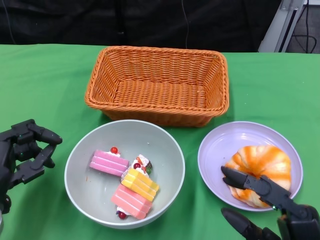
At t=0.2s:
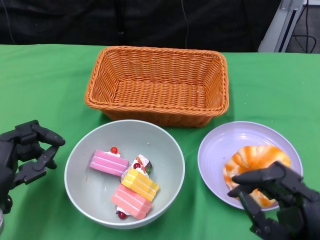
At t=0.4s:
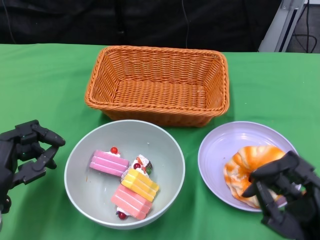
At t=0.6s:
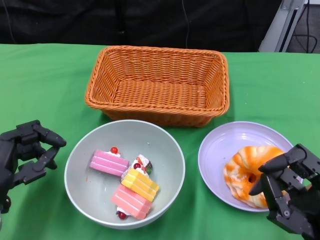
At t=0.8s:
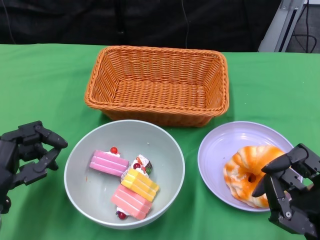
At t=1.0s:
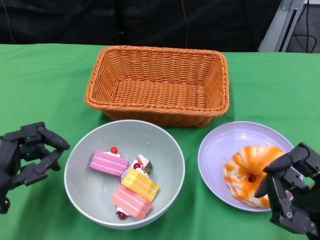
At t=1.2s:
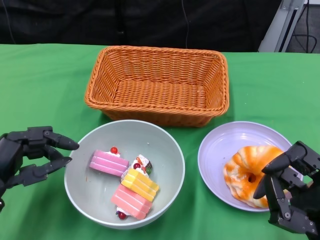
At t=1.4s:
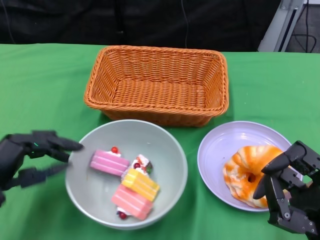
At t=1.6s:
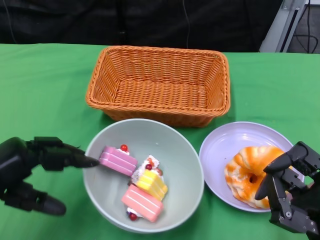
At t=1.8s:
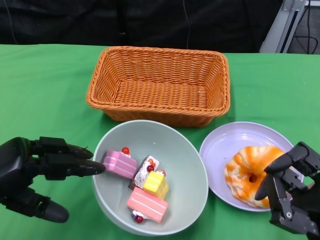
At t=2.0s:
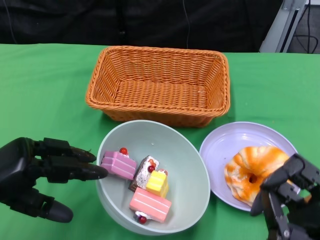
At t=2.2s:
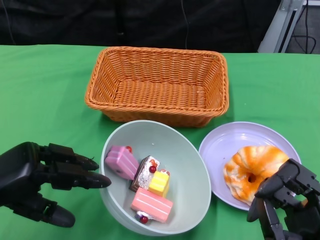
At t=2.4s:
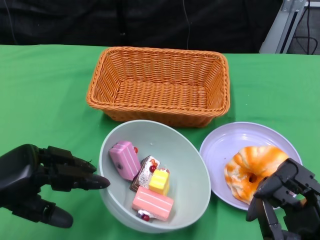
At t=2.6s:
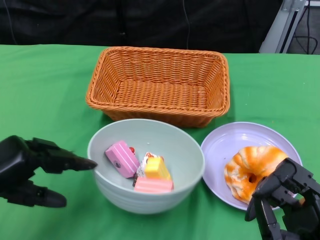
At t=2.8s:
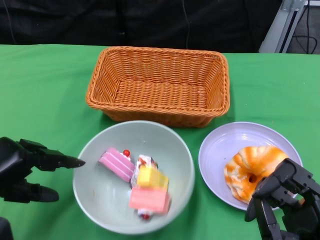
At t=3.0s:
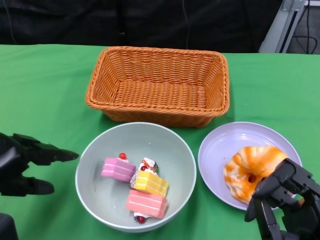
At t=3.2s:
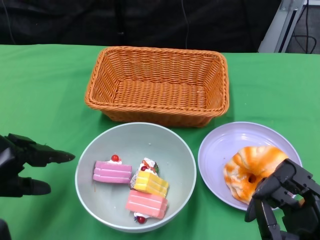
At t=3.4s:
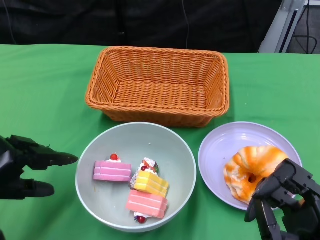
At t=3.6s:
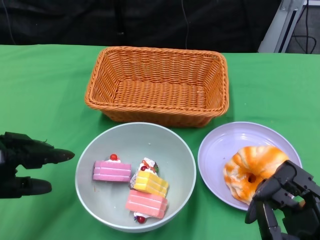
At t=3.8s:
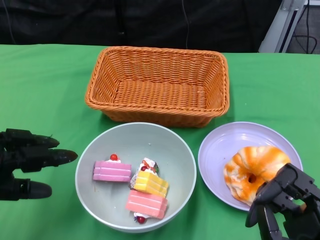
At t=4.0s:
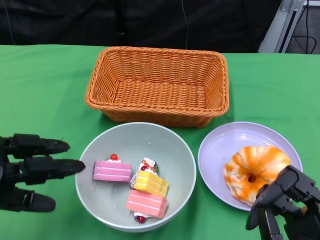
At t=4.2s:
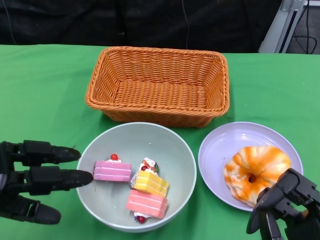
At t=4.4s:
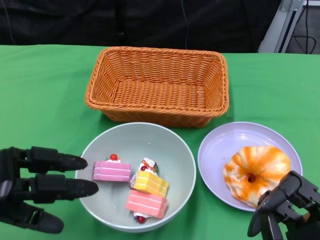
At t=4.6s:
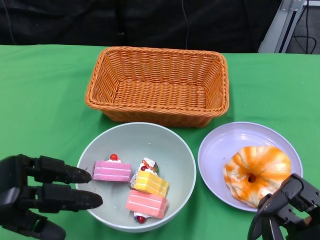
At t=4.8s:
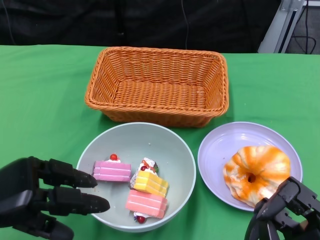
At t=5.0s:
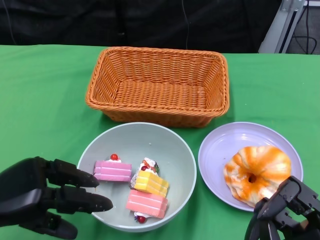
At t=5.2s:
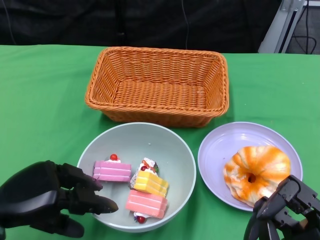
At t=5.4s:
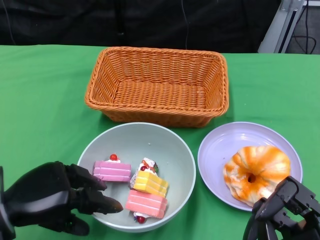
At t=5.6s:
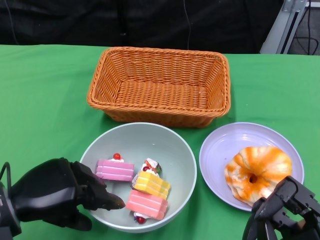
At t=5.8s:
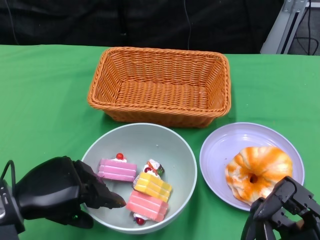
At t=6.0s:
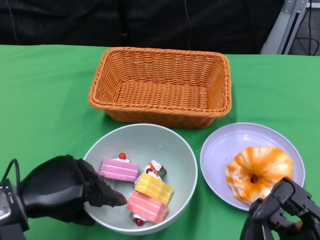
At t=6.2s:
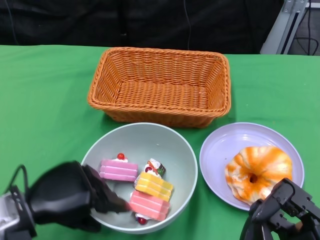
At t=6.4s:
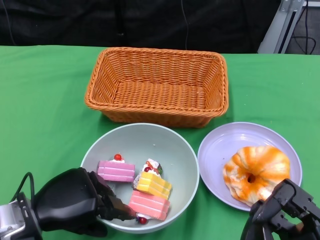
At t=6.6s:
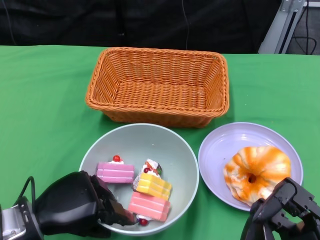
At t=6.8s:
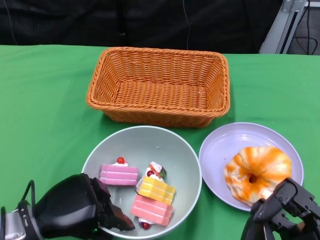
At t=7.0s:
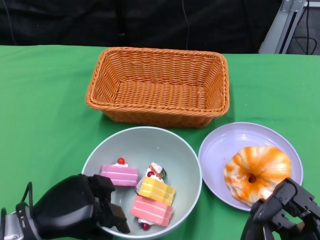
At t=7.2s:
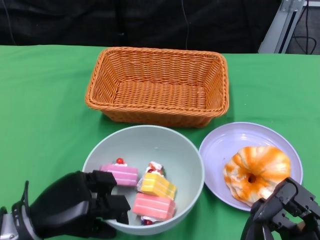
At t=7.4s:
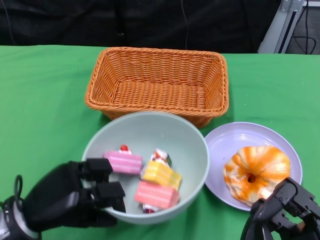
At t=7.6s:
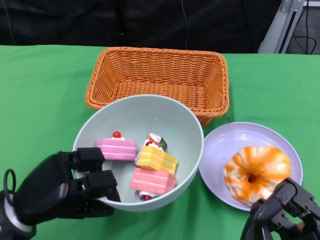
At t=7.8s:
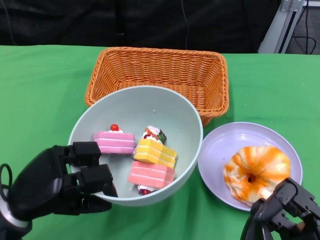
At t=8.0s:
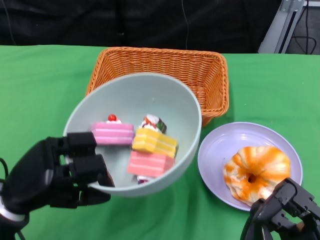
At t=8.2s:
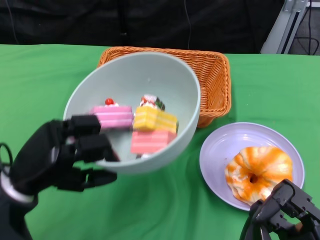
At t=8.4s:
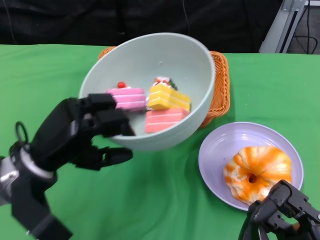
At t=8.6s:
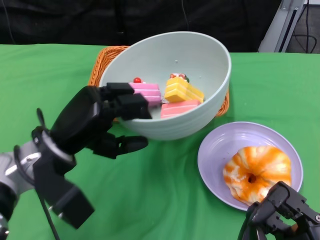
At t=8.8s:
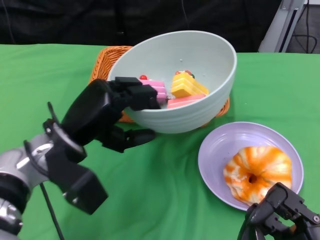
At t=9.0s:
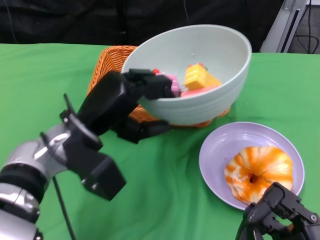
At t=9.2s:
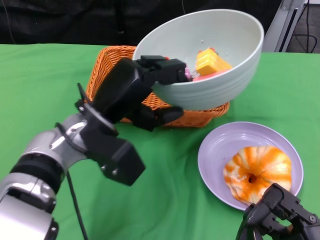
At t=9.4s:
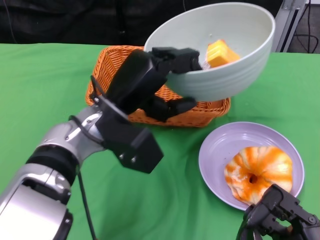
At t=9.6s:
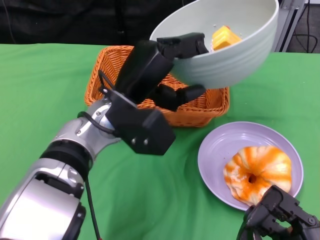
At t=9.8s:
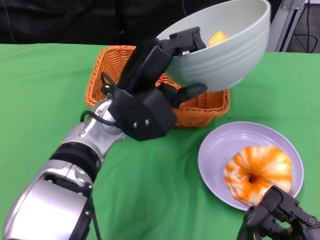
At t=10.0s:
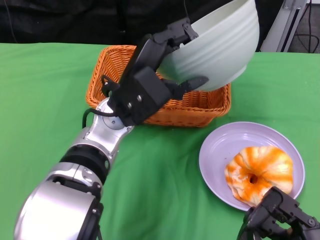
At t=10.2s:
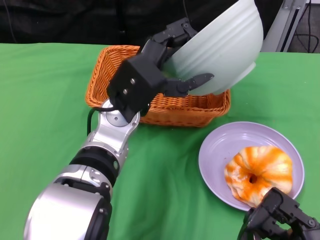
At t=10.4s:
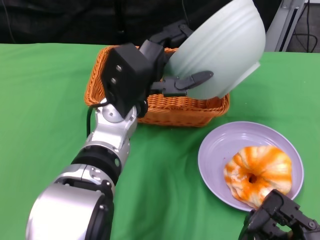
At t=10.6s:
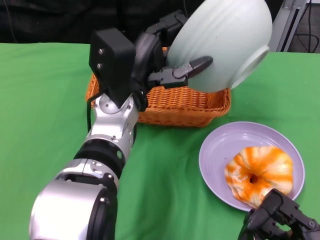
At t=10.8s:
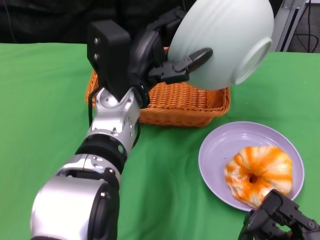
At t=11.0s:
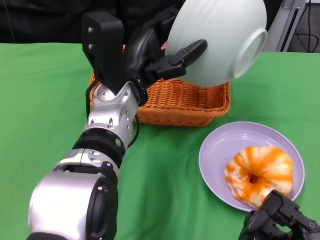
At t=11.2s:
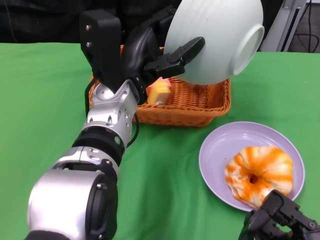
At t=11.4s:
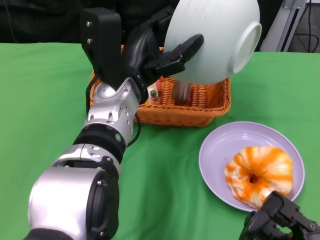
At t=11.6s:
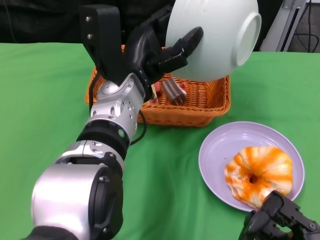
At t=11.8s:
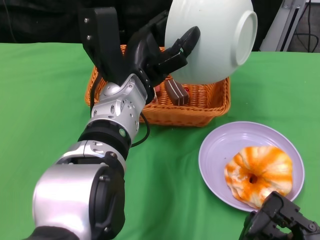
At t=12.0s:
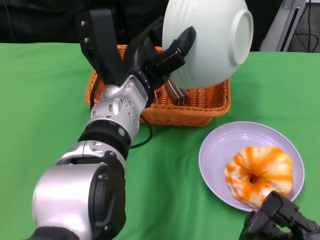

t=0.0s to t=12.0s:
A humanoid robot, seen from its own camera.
Step, t=0.0s to t=6.6s: Grasp the bowl with the left gripper.
t=0.0s to t=1.6s: The right hand moves some 5 cm. The left hand shifts approximately 5 cm upward.
t=4.4s to t=6.0s: The left hand travels to the right by approximately 5 cm.
t=7.6s to t=9.0s: The left hand travels to the right, forward and upward by about 15 cm.
t=9.0s to t=10.4s: The left hand travels to the right by roughly 5 cm.

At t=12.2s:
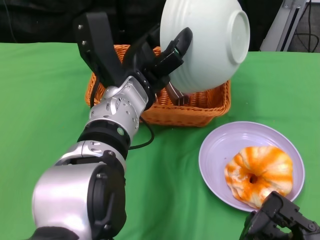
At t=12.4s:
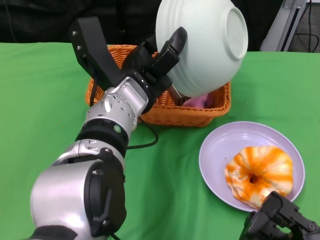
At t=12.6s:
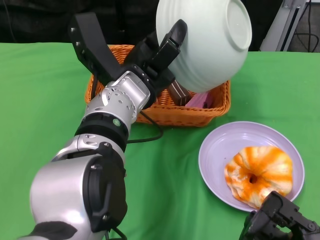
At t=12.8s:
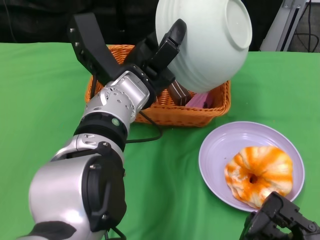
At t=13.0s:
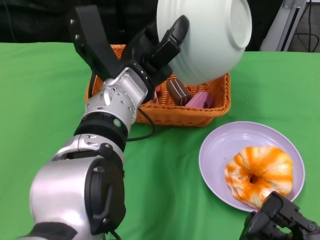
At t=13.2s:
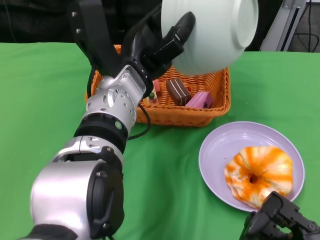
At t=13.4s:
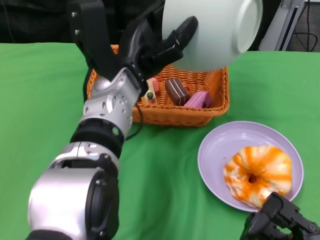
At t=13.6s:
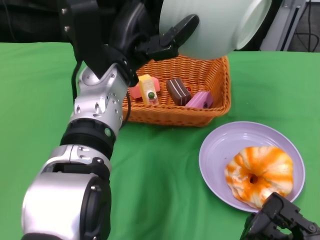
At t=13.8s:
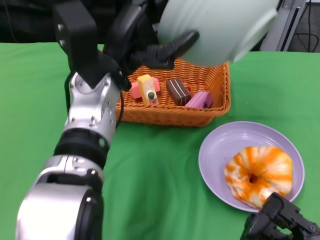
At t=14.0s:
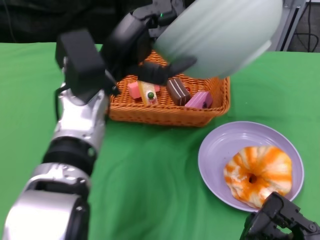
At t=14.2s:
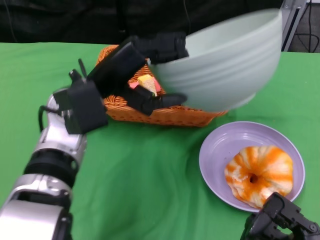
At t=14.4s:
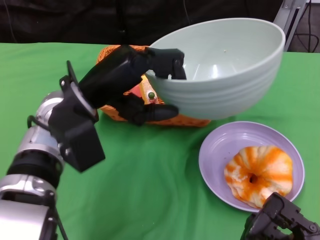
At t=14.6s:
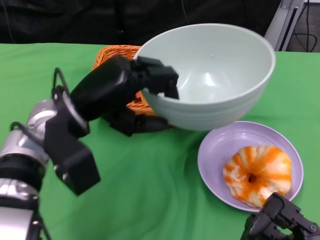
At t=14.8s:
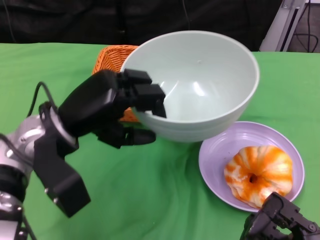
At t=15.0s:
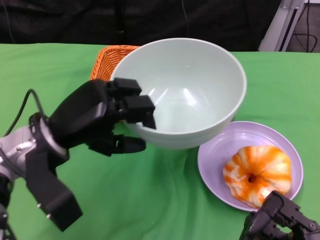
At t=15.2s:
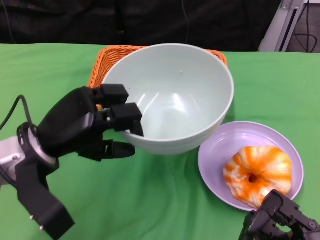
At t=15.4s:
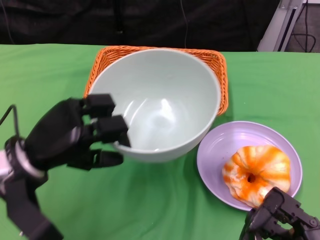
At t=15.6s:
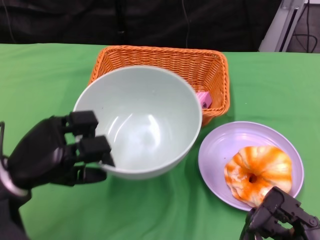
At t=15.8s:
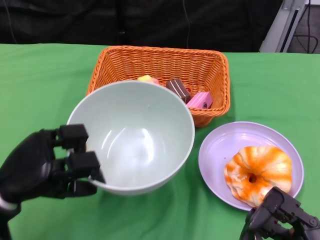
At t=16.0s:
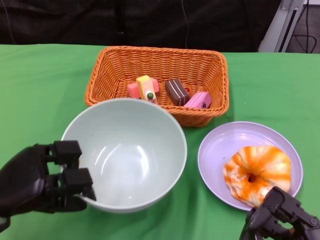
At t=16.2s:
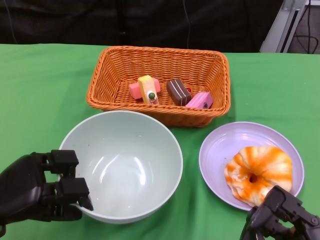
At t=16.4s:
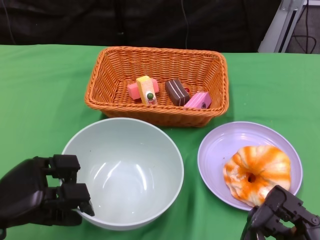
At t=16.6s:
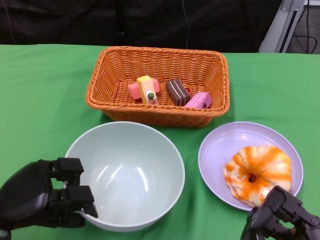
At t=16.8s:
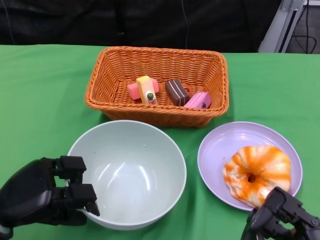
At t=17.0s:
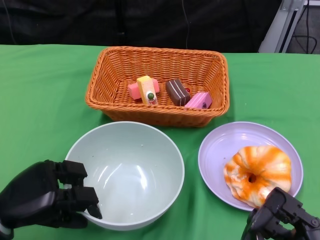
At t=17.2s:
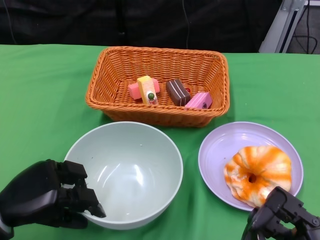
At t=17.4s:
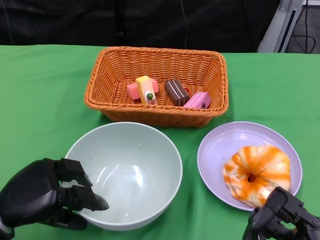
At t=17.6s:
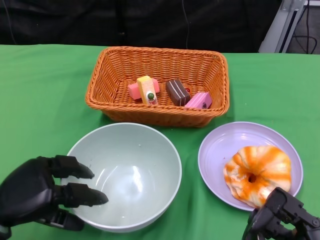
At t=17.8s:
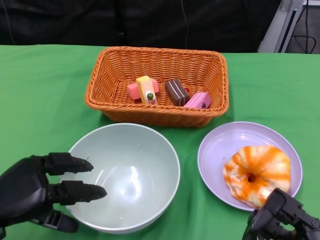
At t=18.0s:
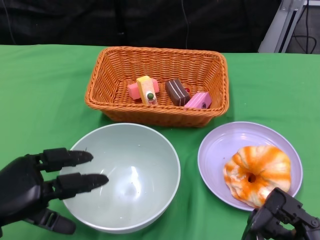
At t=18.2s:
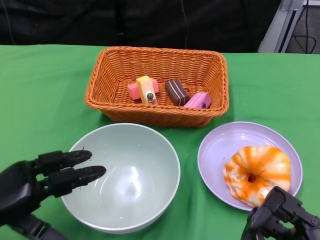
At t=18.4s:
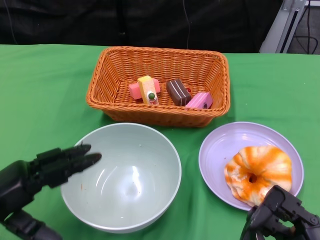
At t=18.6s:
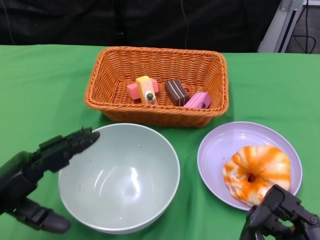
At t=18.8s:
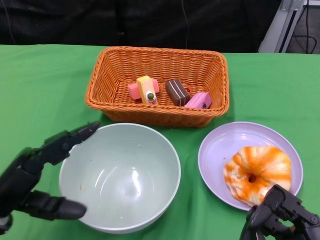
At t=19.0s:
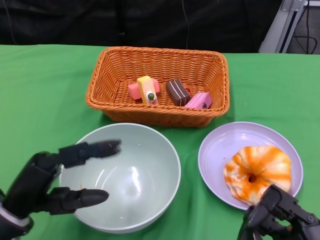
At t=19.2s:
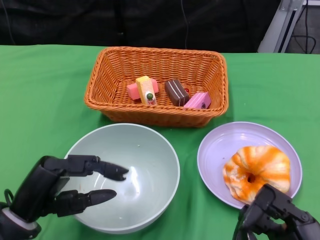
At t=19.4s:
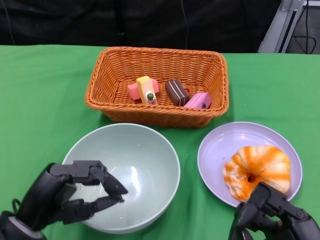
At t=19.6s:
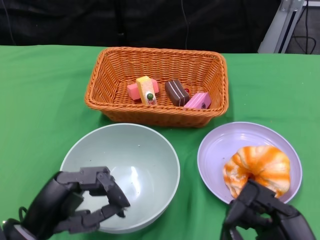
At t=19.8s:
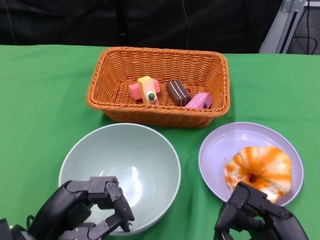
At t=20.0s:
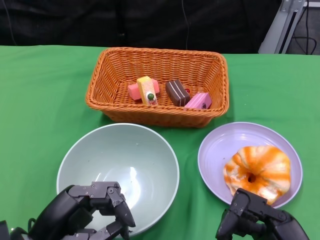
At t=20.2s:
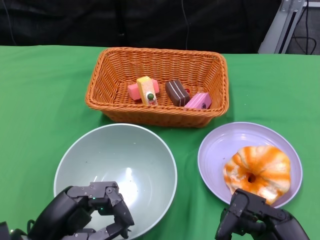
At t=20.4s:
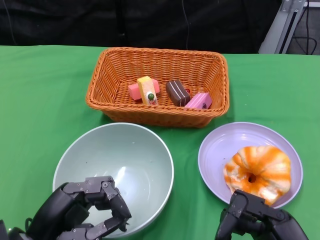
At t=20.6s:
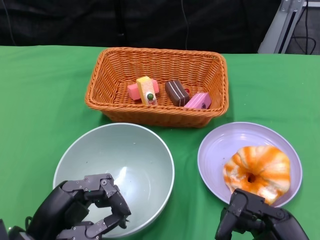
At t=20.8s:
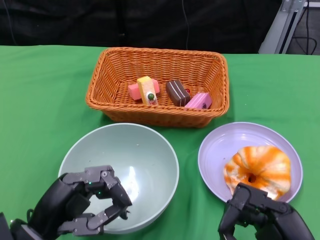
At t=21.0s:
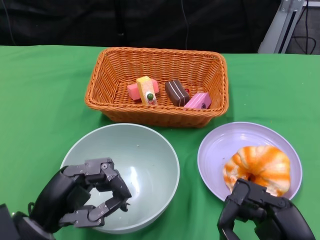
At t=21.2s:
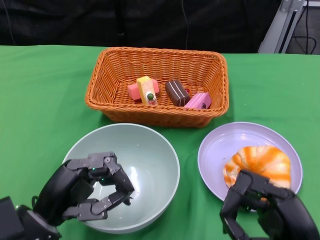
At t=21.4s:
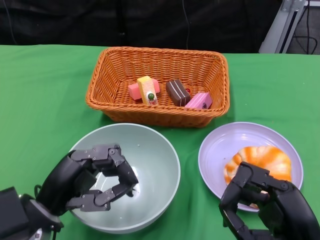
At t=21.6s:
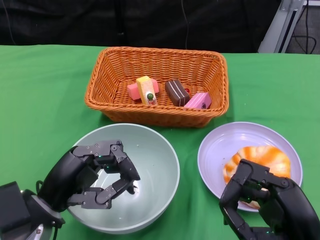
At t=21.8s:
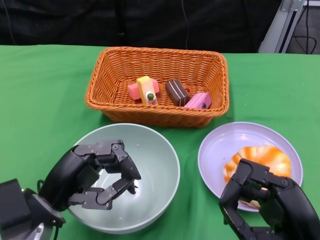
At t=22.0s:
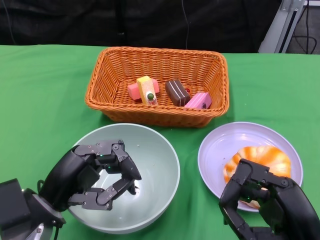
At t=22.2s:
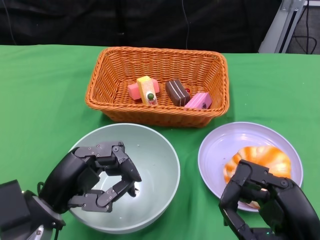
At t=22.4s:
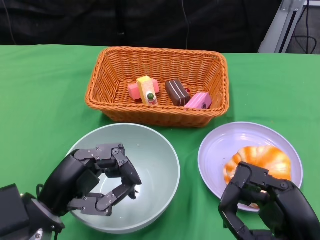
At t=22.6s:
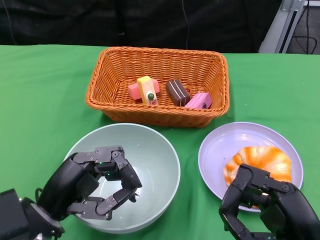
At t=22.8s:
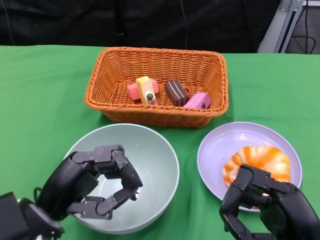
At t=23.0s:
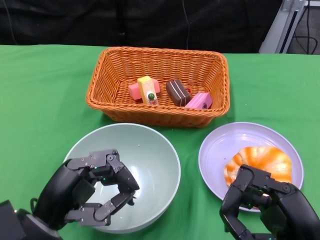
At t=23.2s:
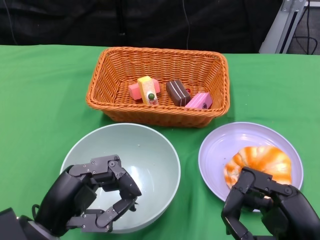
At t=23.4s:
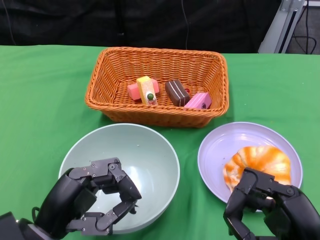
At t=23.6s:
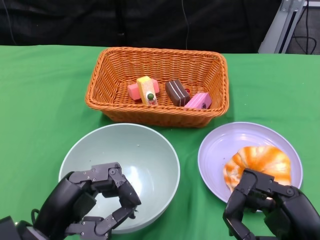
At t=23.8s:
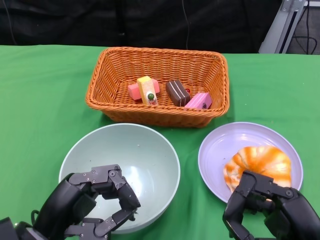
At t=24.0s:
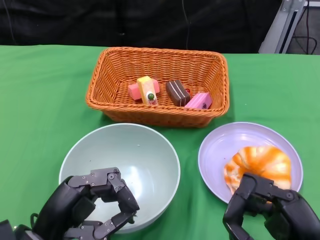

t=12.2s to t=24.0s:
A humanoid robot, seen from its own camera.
Step, t=13.6s to t=17.6s: Place the bowl on the table with the left gripper.
t=13.6s to t=15.2s: The left hand shifts approximately 15 cm to the left, downward and backward.
t=15.2s to t=16.6s: The left hand moves downward, to the left and backward, roughly 10 cm.
t=16.6s to t=18.2s: The hands make only small movements.
t=18.2s to t=19.6s: The left hand heads to the right, covering approximately 5 cm.
t=19.6s to t=24.0s: The hands make only small movements.
